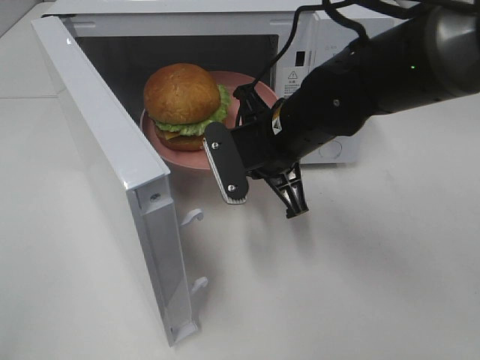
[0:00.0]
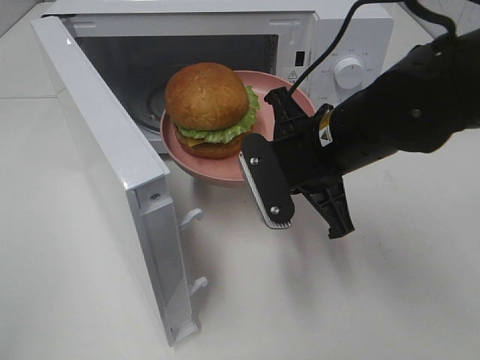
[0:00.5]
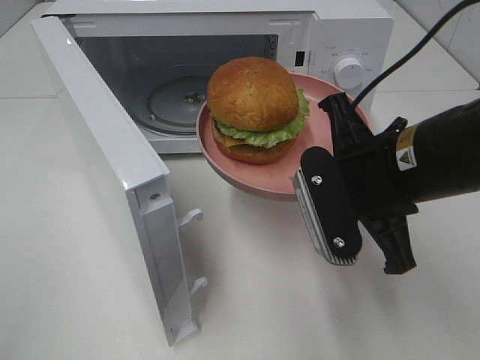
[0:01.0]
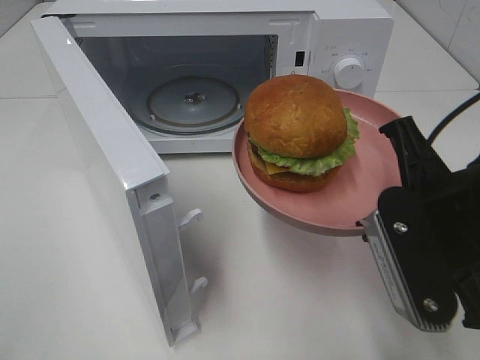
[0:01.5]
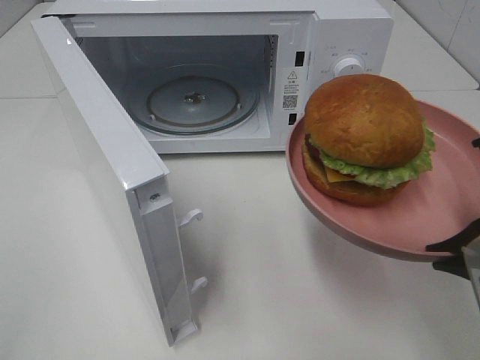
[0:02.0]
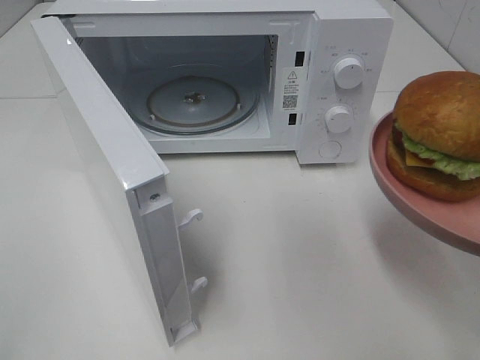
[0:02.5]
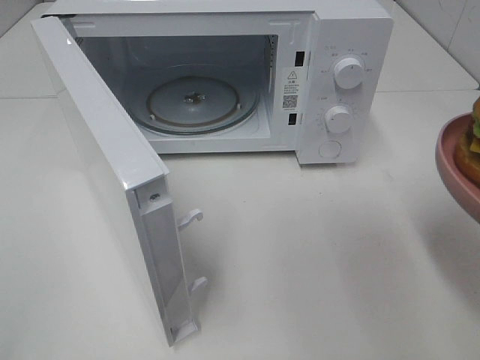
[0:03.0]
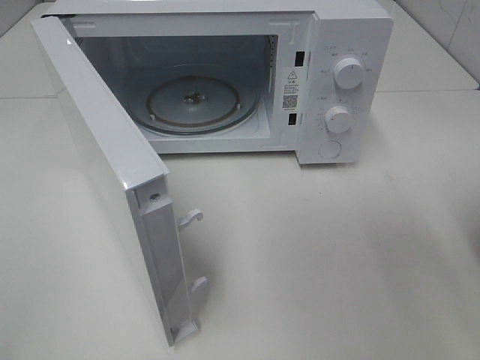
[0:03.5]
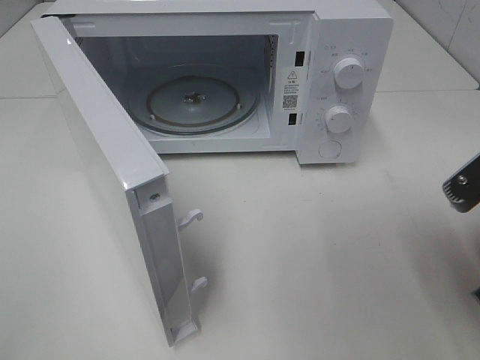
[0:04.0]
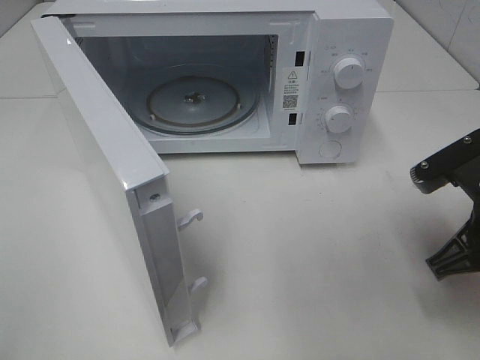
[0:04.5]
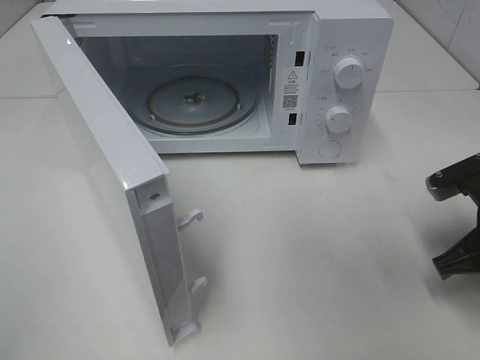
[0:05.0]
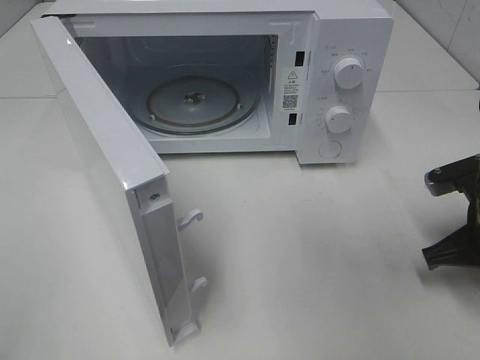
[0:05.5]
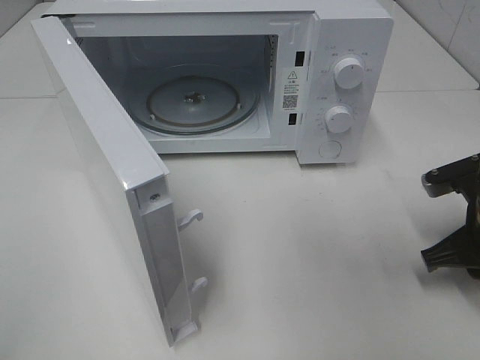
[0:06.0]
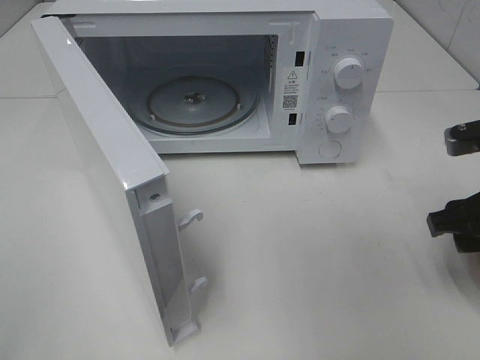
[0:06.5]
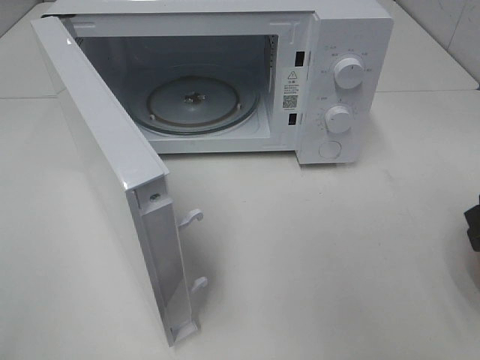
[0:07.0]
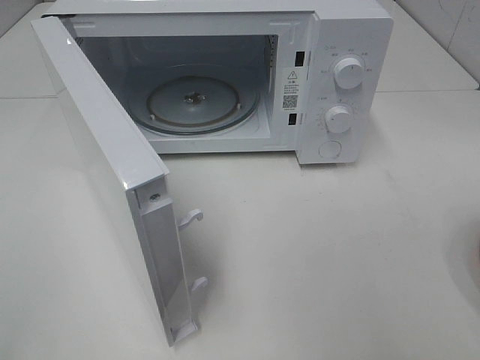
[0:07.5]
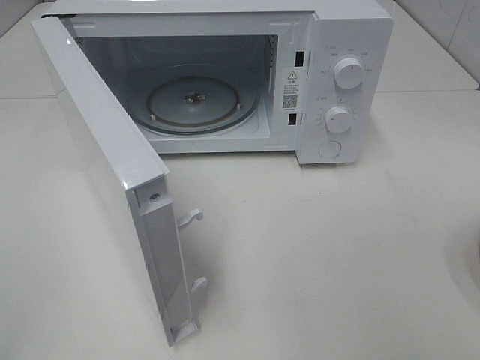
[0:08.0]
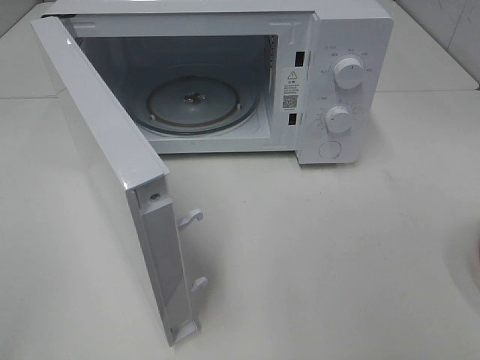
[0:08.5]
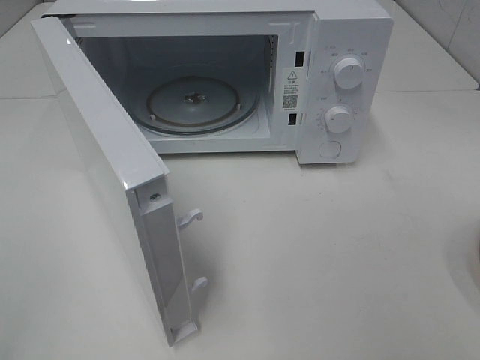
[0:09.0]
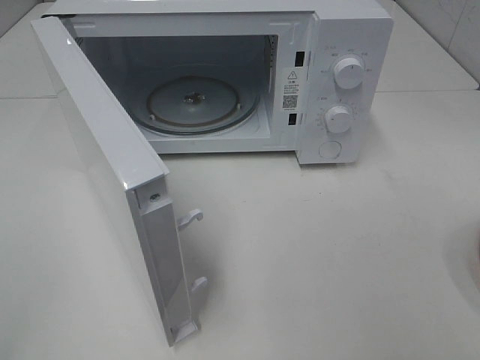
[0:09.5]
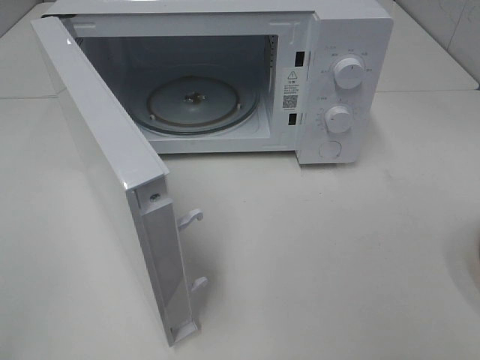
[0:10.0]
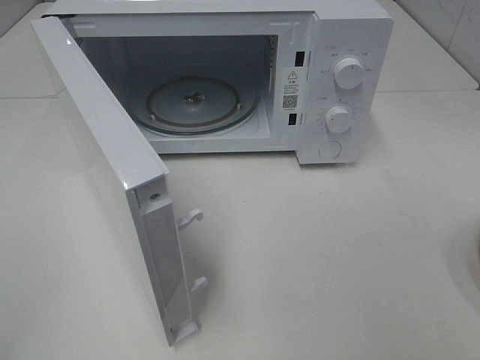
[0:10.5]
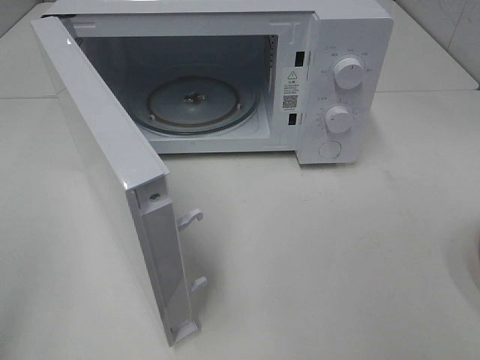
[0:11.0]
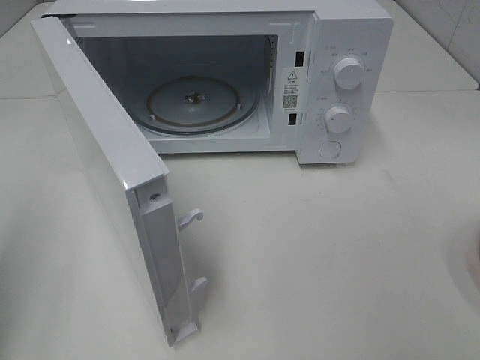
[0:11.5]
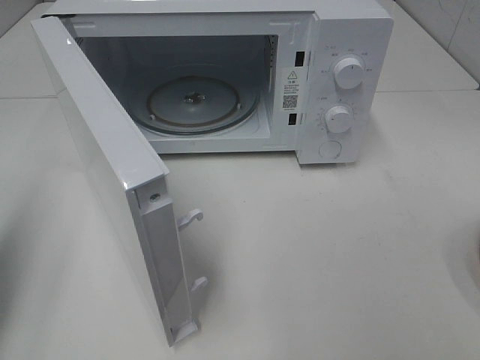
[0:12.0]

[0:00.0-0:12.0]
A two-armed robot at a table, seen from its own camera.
Task of the whole recording: Heat the burger.
Step, 0:00.0 to 0:05.5: Right hand: place the plate on the table.
0:00.0 to 0:02.0: The right gripper is displaced backward and to the right by roughly 25 cm.
0:02.0 to 0:04.0: The right gripper moves some 5 cm.
0:04.0 to 0:06.0: The right gripper goes some 10 cm forward and downward, and opens its fingers.
0:06.0 to 0:08.0: The right gripper is displaced backward and upward by approximately 25 cm.
0:10.0 to 0:12.0: The left gripper shifts approximately 15 cm forward, and closes.

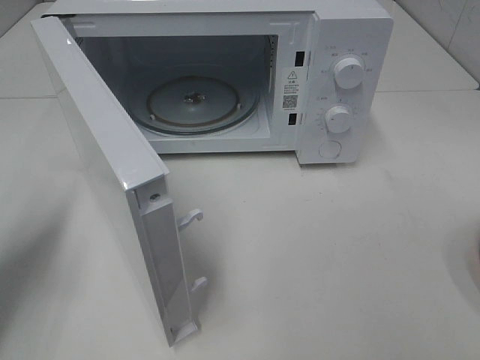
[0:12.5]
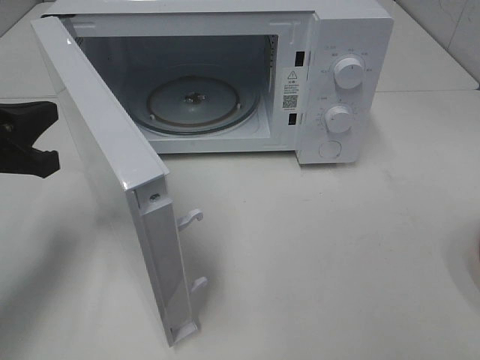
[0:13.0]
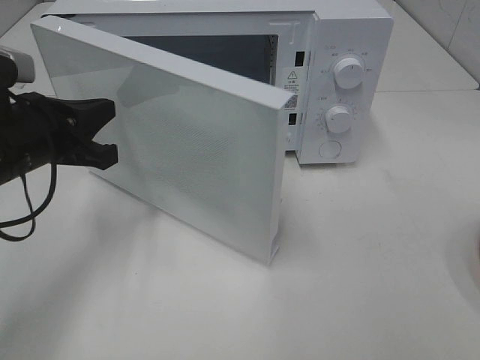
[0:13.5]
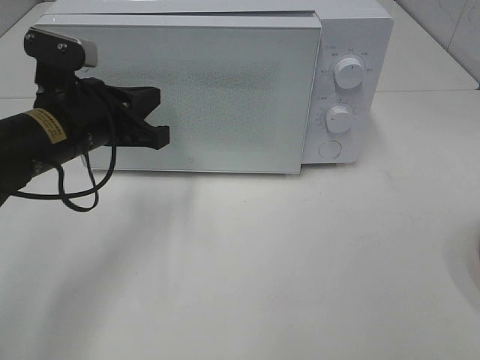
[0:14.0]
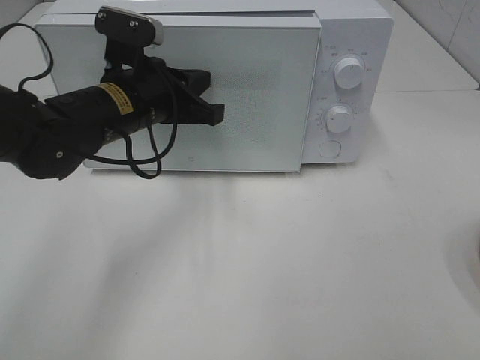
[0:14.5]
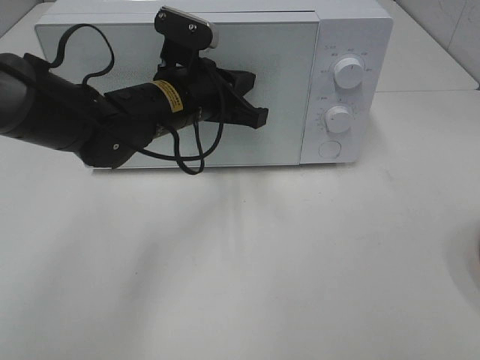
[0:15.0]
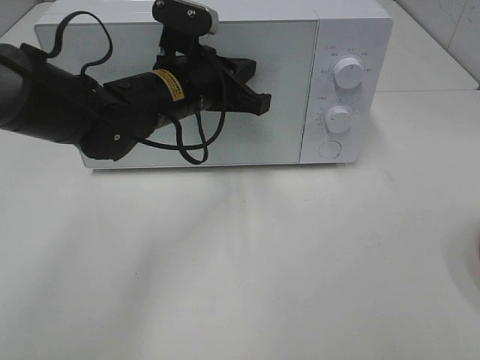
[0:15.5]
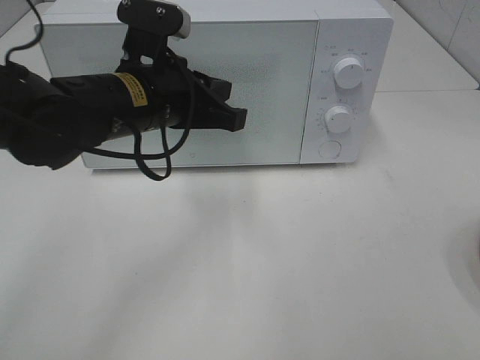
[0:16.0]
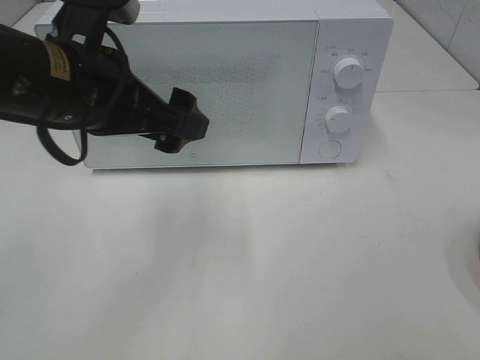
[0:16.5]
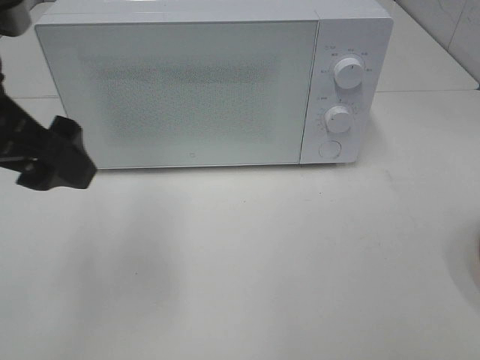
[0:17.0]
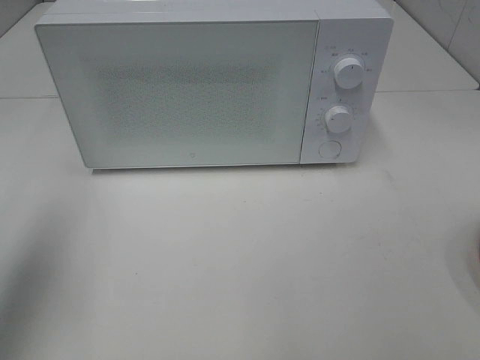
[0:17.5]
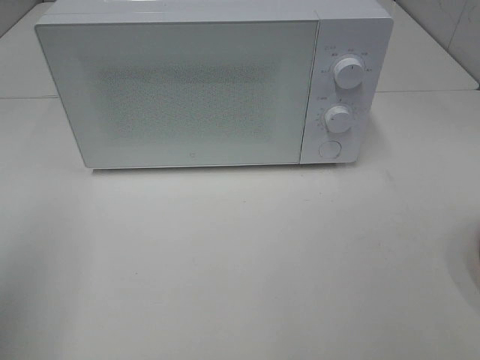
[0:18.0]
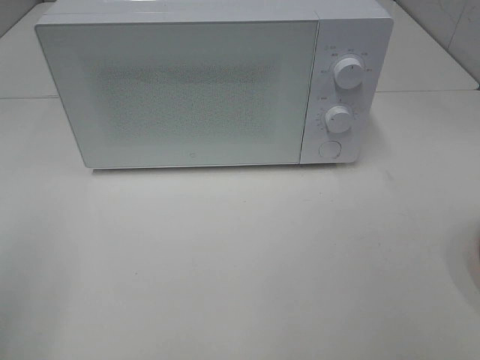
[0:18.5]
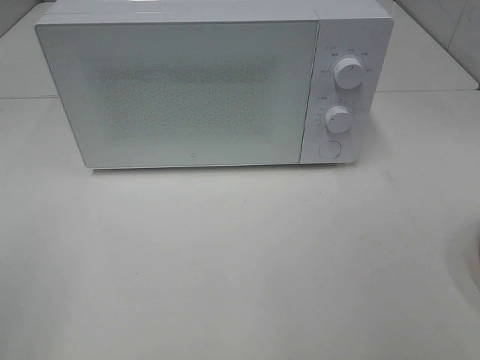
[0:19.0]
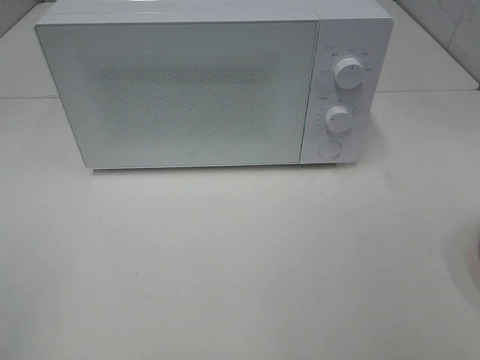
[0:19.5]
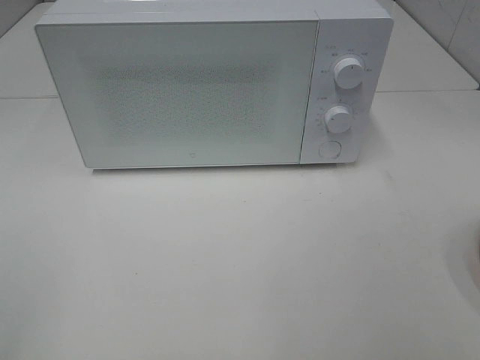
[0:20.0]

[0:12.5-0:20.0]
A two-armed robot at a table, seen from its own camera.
Task of the whole recording: Heat the burger.
Step, 0:12.5 to 0:15.5: Left hand: close the microwave door.
0:12.5 to 0:14.5: The left gripper moves to the right and forward, about 25 cm.
0:14.5 to 0:16.5: The left gripper travels backward and upward by approximately 10 cm, and opens.
0:16.5 to 0:18.0: The left gripper is displaced to the left and backward by about 25 cm.
0:18.0 to 0:20.0: The left gripper travels backward by approximately 10 cm.
